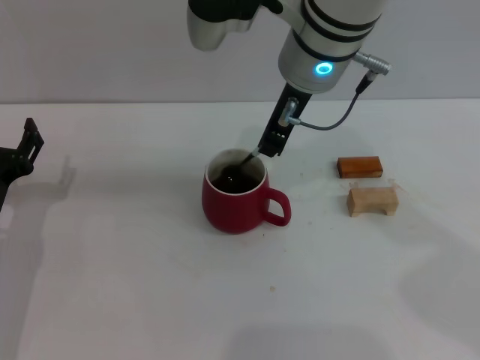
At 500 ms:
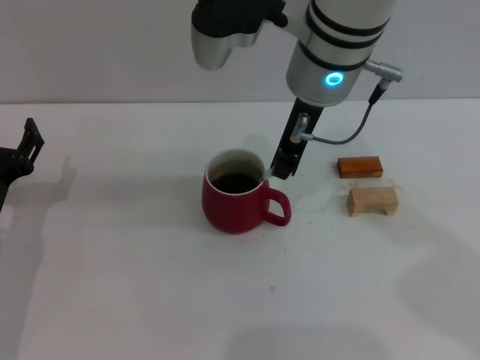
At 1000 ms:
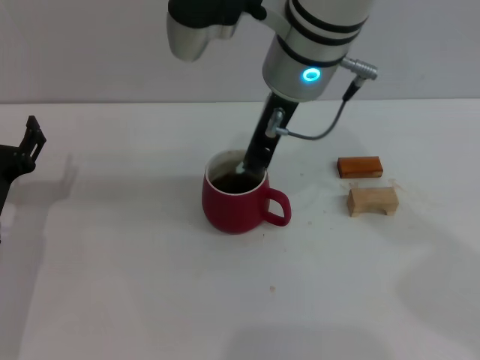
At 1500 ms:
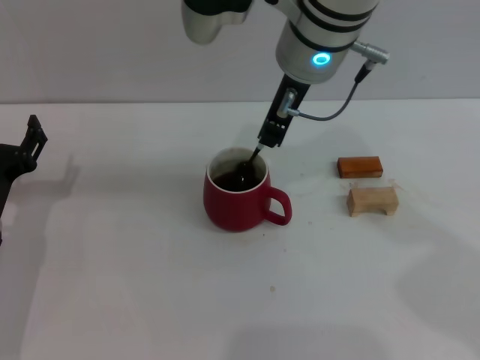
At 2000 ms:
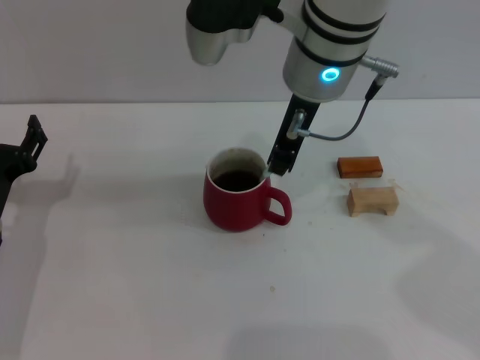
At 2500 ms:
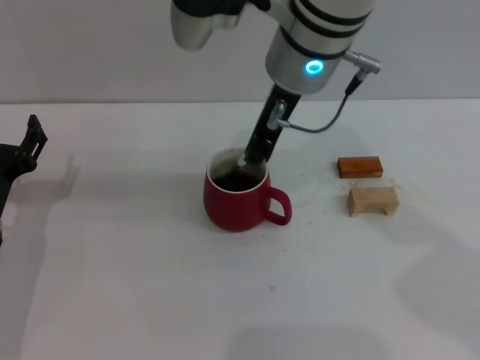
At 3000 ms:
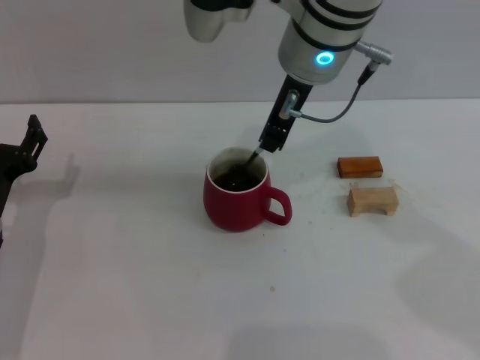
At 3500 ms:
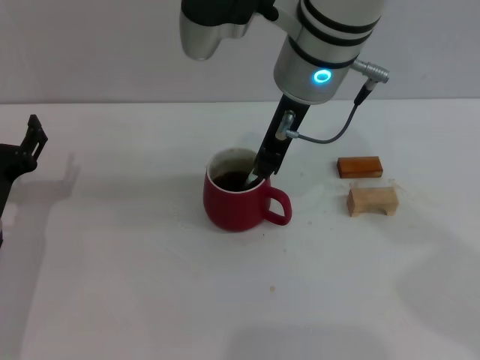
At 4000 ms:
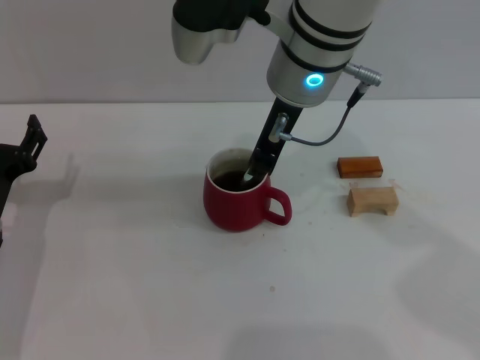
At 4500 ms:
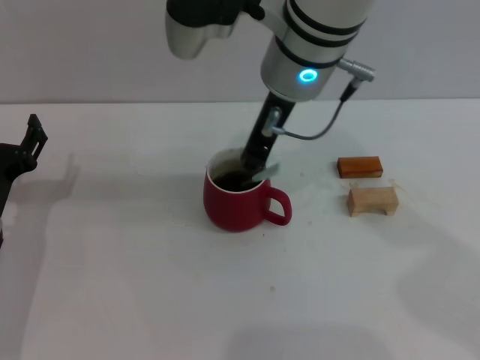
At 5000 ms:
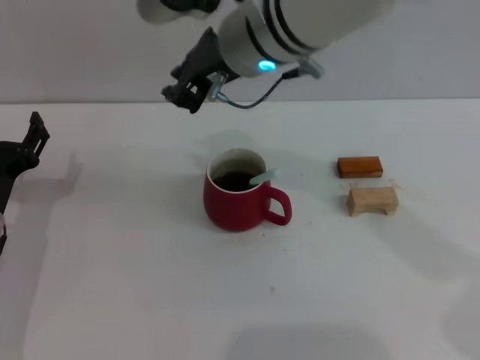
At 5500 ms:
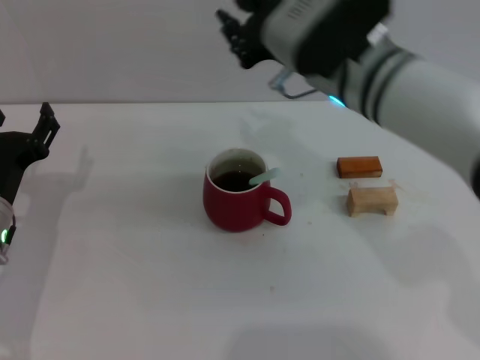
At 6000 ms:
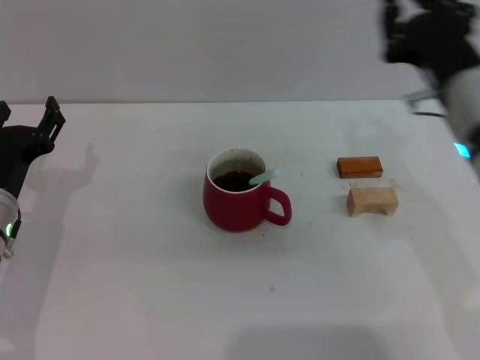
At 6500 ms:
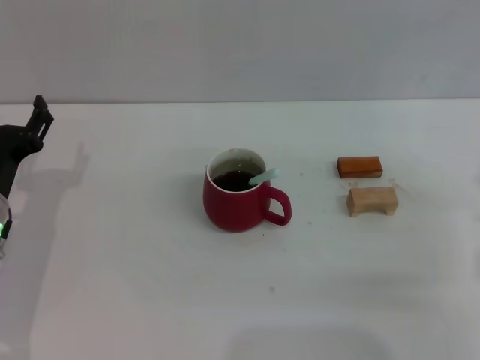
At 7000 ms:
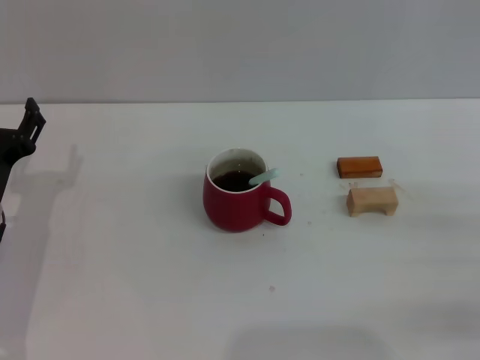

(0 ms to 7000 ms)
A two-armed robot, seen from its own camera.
Task of the whole recording: Move the red cup to the center, lift the blue spoon, stir it three times in the cup, and put the spoon into the cup.
Step, 0 ms - 4500 ms: Stir the coffee in the cup with the right gripper.
0 ms - 3500 ms: The grippers make only small movements.
5000 ms - 7000 ms: The right gripper shifts approximately 40 cm to the right, downward and backward.
